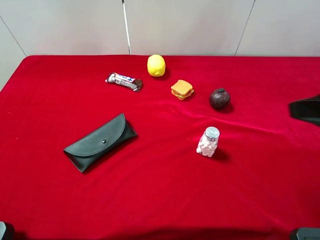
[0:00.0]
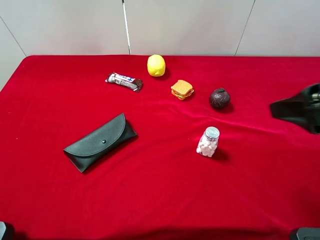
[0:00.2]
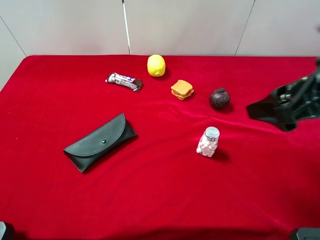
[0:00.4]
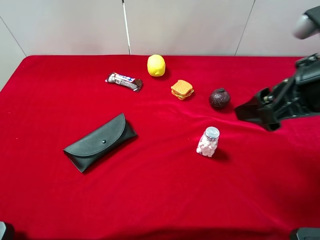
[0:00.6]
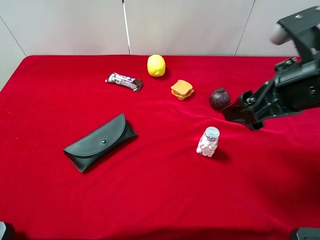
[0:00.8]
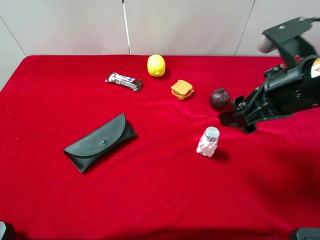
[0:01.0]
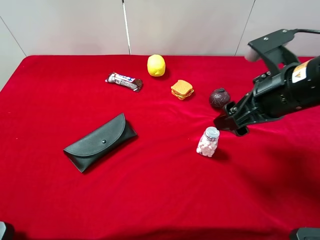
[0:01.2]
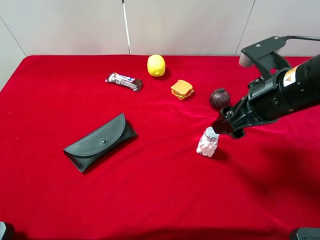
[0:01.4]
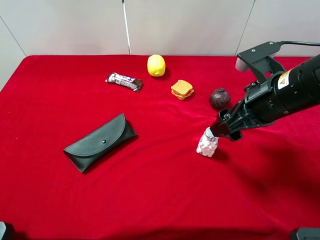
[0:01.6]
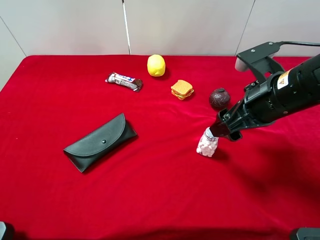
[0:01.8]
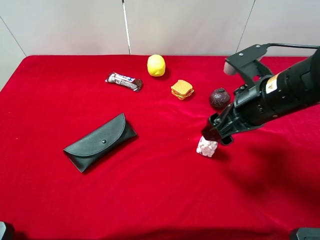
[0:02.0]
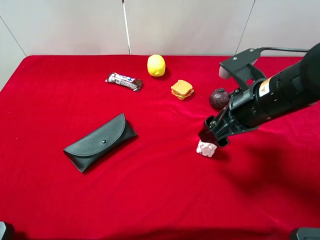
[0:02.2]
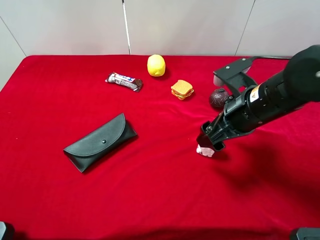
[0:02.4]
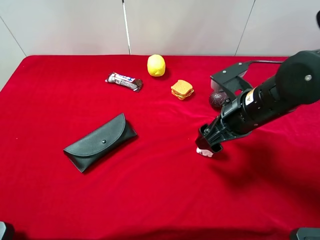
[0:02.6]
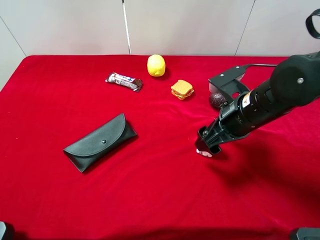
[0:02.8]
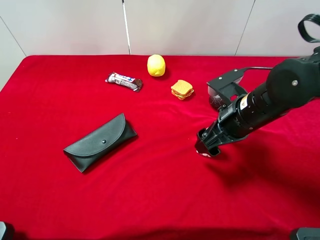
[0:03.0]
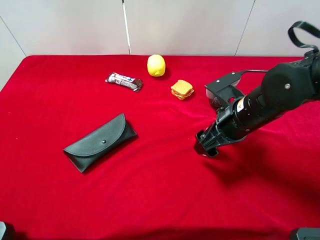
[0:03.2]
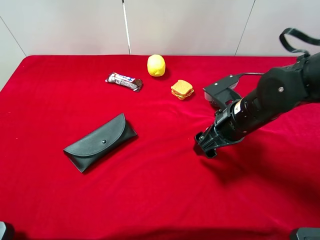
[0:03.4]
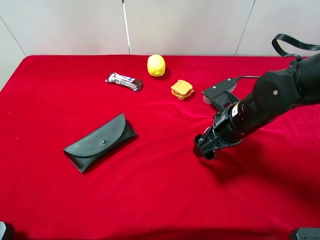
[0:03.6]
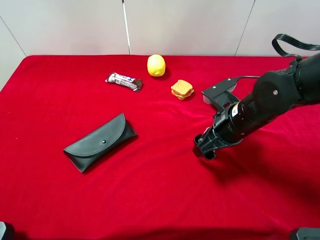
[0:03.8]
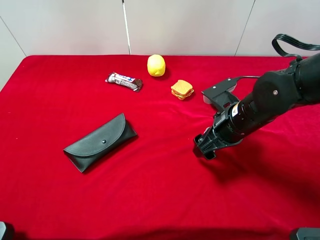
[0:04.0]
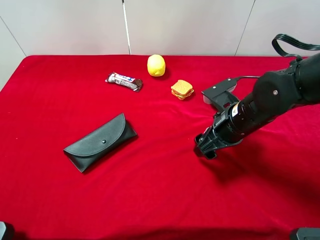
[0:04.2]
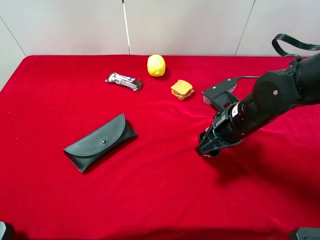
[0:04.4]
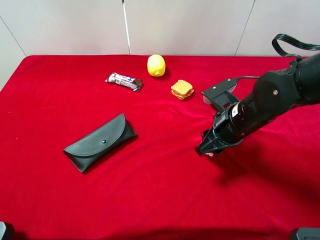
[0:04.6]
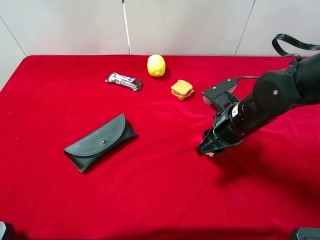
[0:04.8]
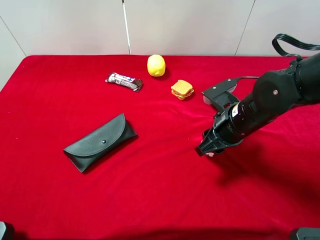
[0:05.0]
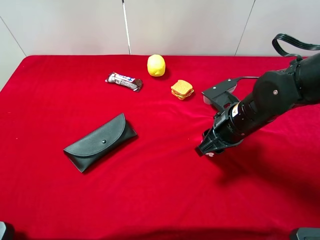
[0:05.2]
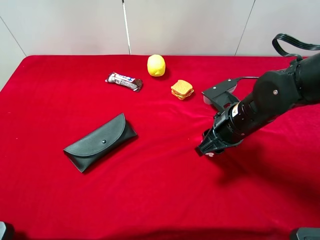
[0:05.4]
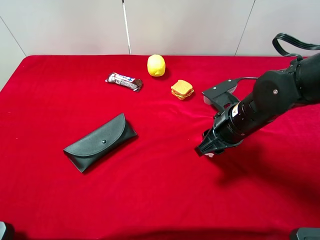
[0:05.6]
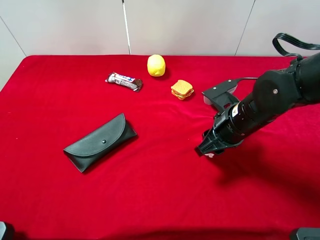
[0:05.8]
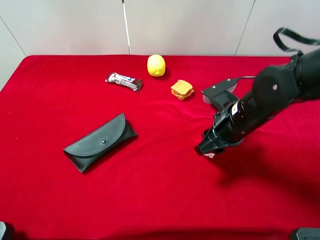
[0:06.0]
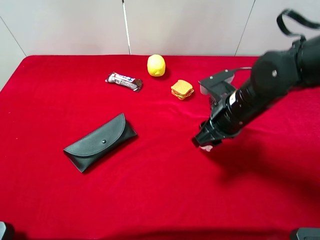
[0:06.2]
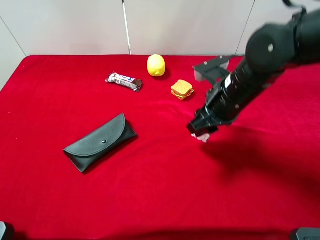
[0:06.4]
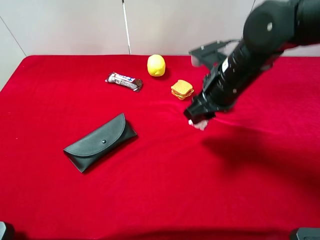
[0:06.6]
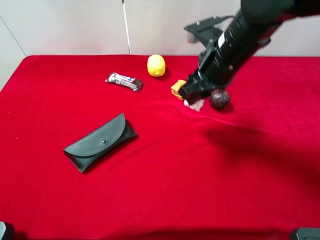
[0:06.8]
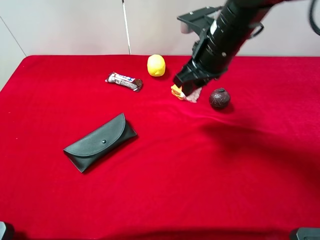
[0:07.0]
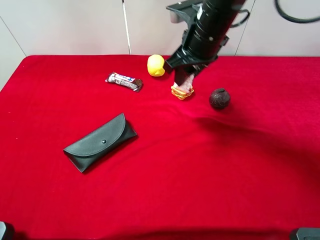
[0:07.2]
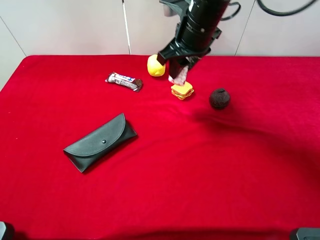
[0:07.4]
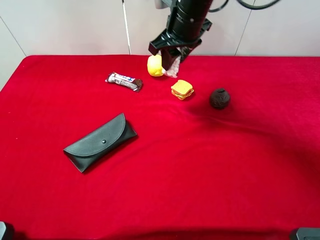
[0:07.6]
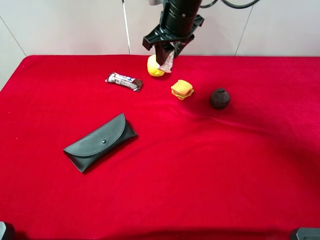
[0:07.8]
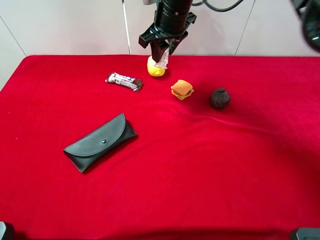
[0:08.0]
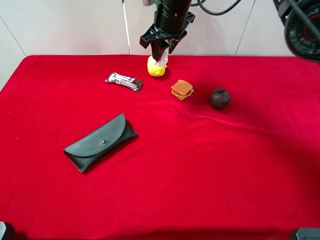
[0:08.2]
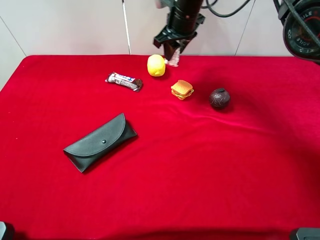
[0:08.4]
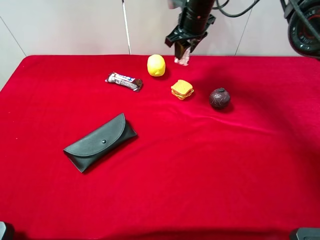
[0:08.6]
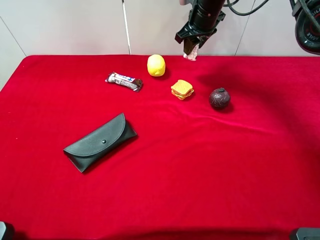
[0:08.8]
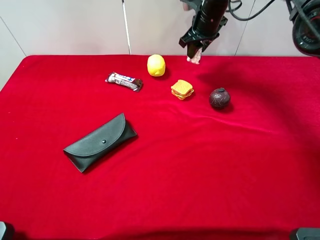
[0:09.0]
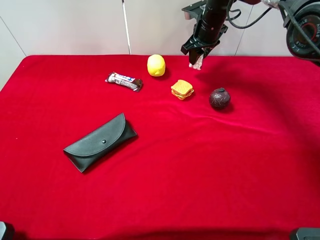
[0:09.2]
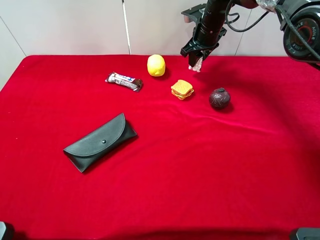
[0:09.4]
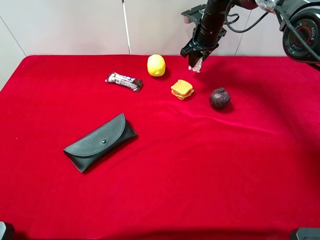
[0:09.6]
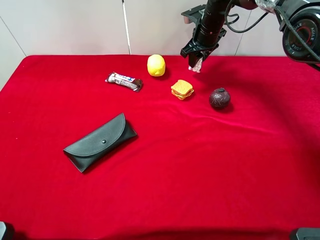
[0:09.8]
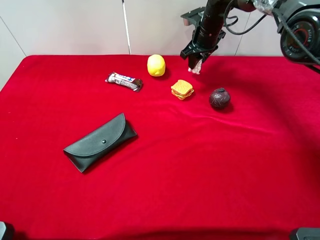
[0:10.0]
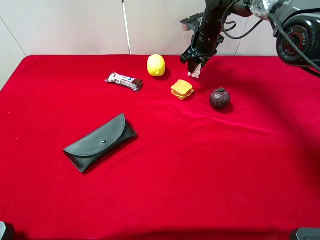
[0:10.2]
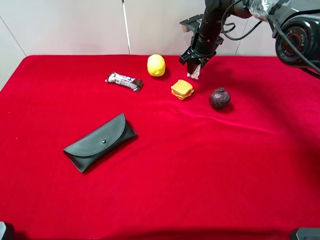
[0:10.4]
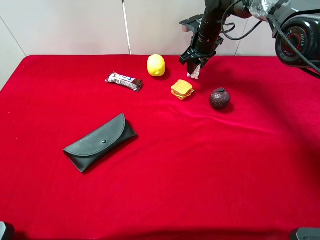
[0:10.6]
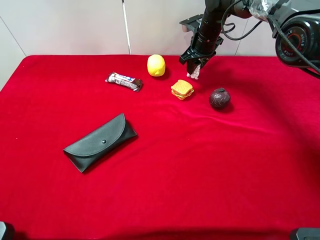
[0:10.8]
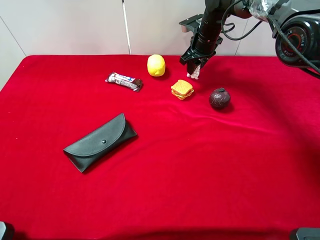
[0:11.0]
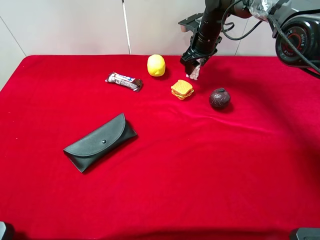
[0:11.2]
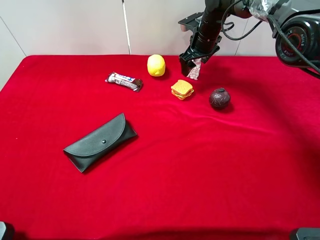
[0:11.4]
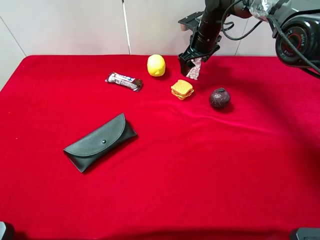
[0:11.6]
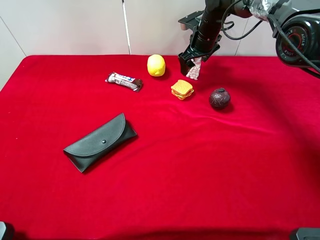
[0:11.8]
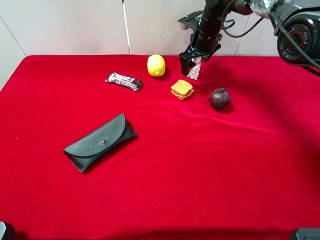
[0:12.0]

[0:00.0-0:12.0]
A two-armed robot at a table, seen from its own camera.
Task of the whole recording: the gripper move the object.
Step, 0:00.0 to 0:04.6: Grasp the mint candy with the right gripper.
0:00.0 to 0:01.6: The right gripper goes roughly 15 cm downward, forward and to the left.
0:01.6 to 0:03.0: The right gripper travels downward by roughly 5 cm.
0:03.0 to 0:04.4: The right gripper closes.
0:04.4 to 0:06.0: Both grippers stay about where they are.
0:06.0 to 0:07.6: The right gripper shifts roughly 20 cm forward, upward and to the left.
0:07.6 to 0:09.0: The right gripper is displaced forward, to the right and downward by some 15 cm.
0:09.0 to 0:10.4: The right gripper goes approximately 5 cm downward.
0:10.4 to 0:12.0: The right gripper opens up.

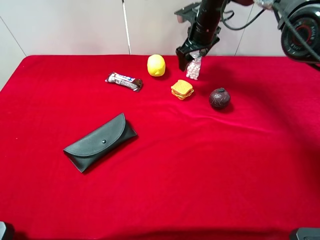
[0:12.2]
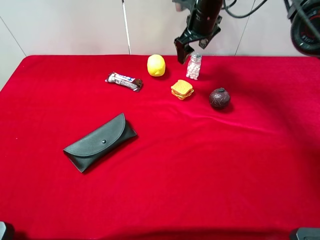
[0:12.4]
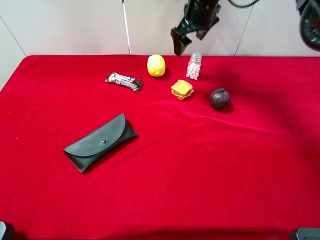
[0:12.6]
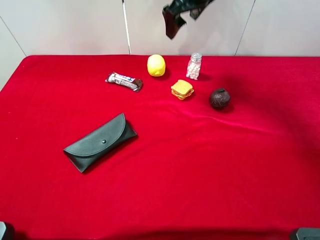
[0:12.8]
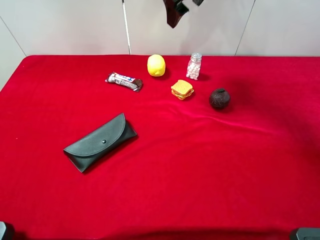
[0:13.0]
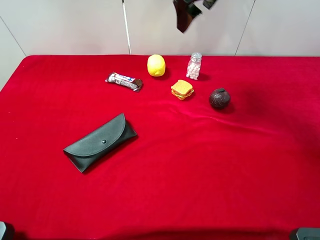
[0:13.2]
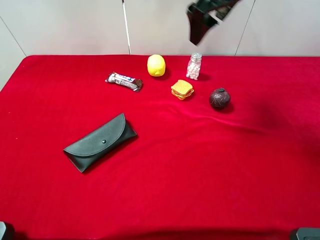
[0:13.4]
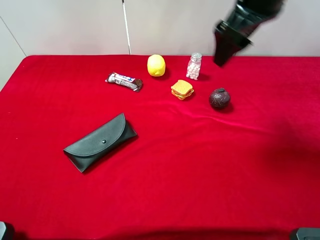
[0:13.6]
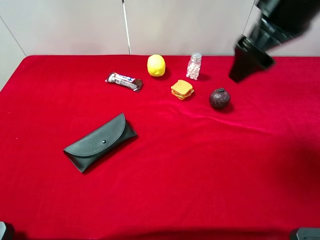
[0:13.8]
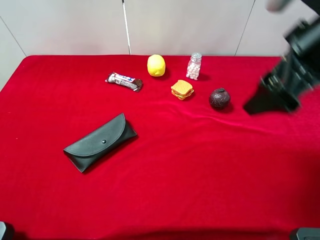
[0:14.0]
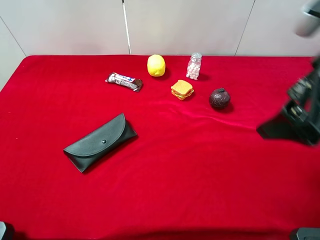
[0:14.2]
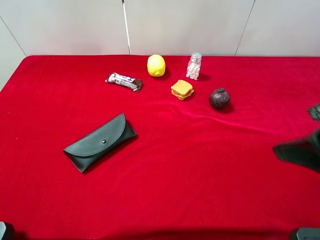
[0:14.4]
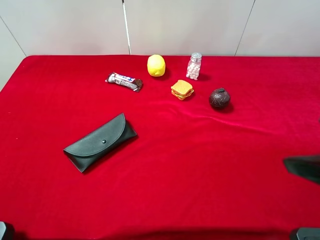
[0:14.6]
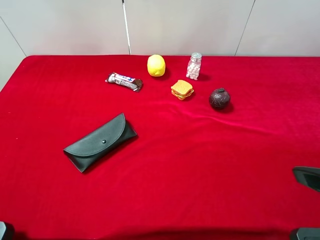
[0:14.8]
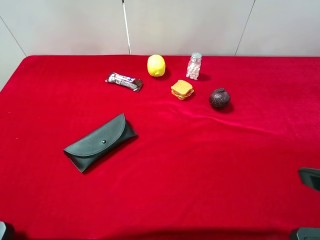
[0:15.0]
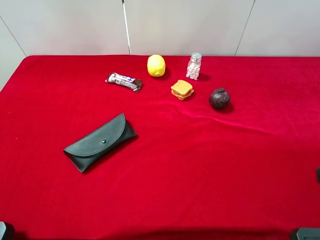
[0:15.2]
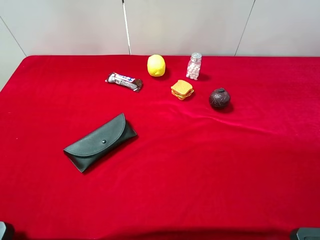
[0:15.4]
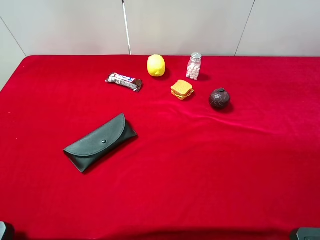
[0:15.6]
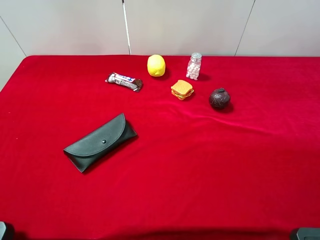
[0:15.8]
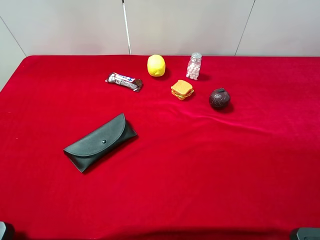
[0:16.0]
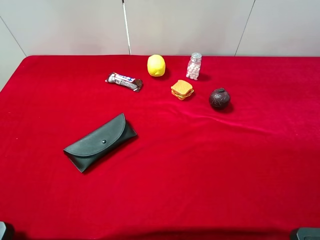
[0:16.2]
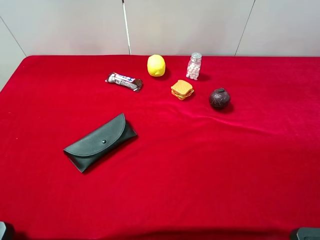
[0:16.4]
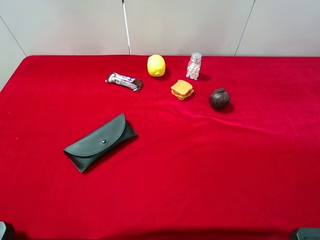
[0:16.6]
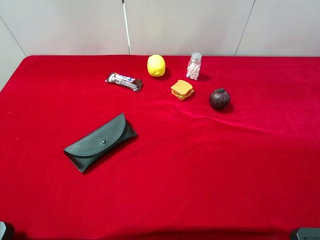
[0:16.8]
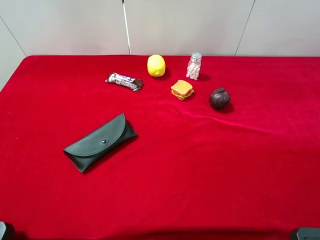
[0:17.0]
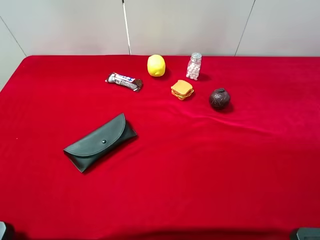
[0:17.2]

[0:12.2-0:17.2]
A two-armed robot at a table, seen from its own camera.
Task of the whole recording: the gripper move the object.
0:12.2 to 0:13.8: The right gripper moves backward and upward, some 30 cm.
0:13.8 to 0:15.6: The right gripper goes roughly 25 cm backward and to the right.

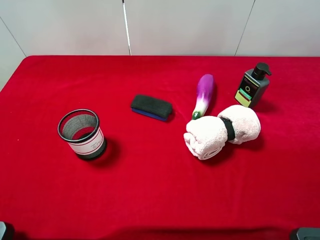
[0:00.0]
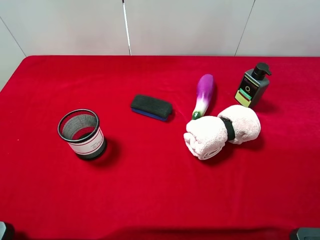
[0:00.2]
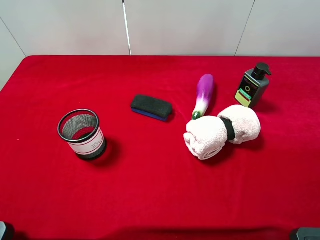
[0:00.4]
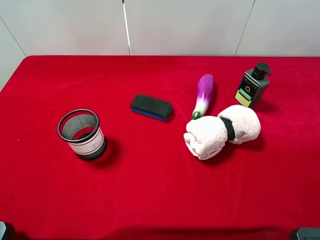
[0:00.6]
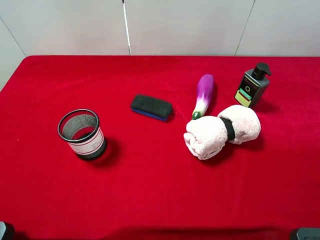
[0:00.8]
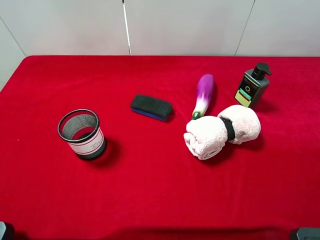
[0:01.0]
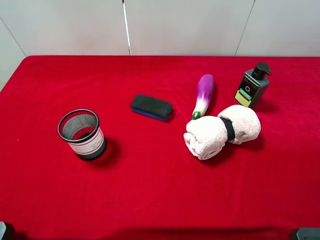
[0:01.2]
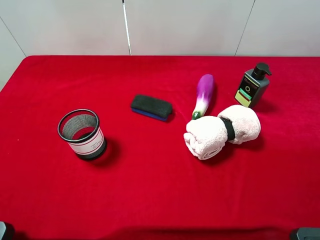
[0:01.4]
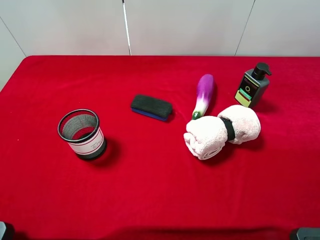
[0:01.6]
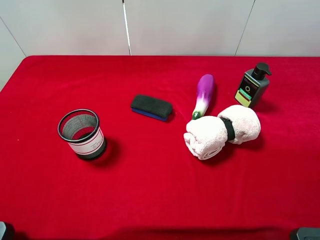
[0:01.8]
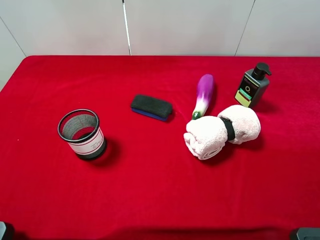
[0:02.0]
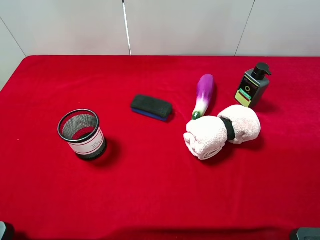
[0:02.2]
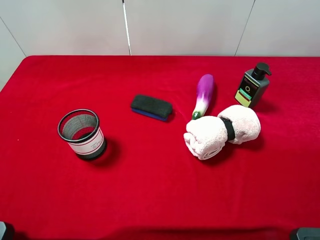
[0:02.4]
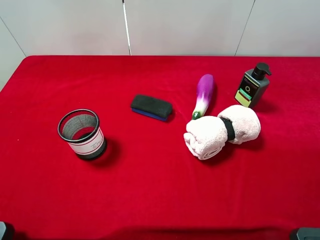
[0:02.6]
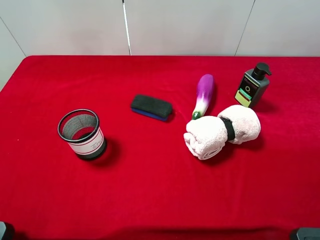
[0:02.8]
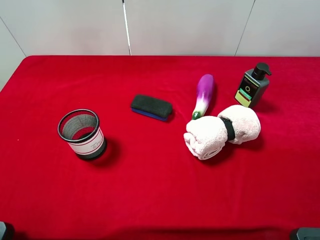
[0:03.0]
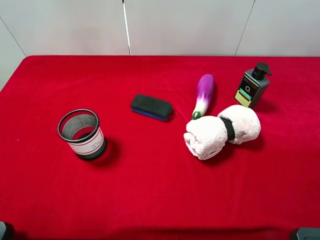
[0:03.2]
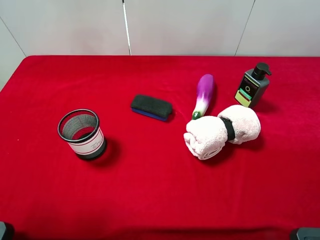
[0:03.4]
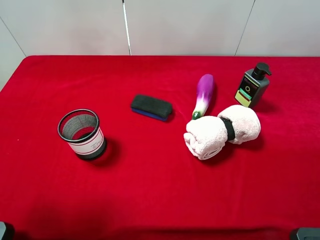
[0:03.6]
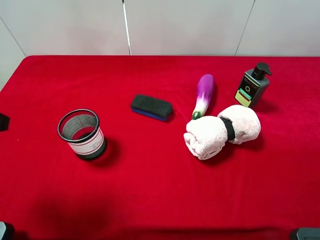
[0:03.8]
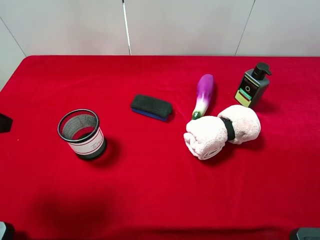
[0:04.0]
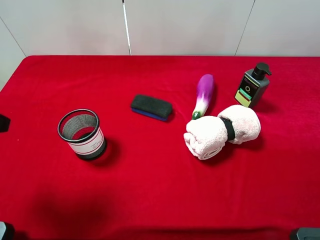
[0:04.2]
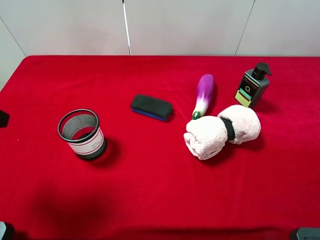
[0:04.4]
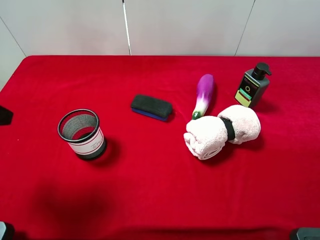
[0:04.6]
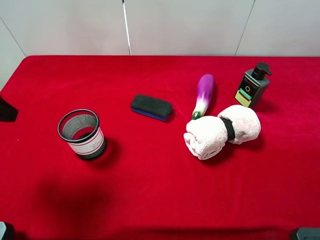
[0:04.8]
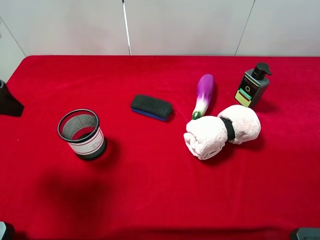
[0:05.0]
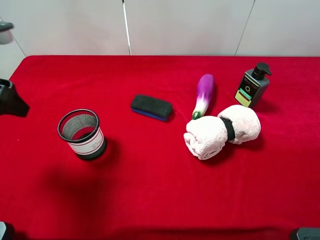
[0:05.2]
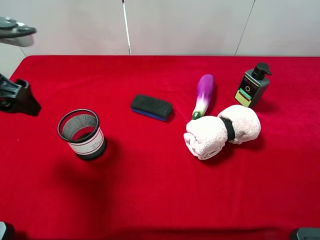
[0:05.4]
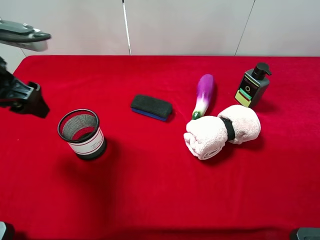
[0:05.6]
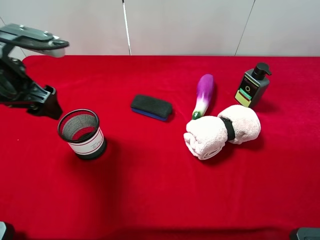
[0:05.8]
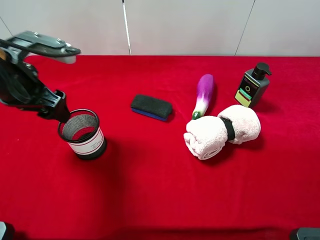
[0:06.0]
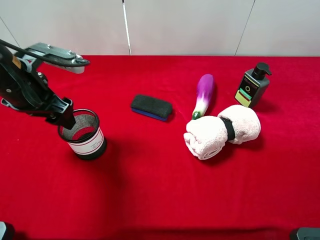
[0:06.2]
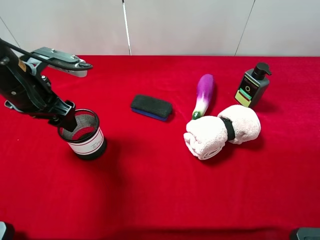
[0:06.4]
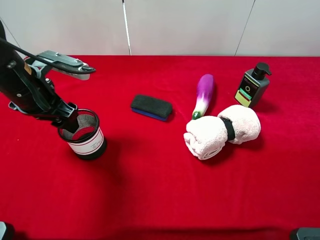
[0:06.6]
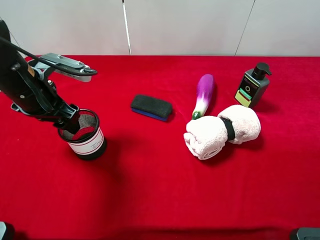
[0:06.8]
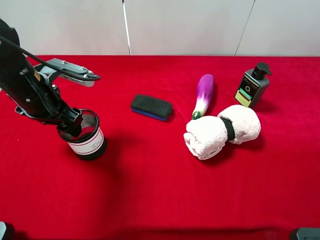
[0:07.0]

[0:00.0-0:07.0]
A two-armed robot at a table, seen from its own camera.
Task of the whole recording: the gripper move the object.
0:00.0 to 0:01.4: Neither gripper changes place.
0:02.8 to 0:04.2: The left gripper shifts about 10 cm forward.
0:04.2 to 0:05.6: The left gripper is displaced forward by roughly 10 cm.
0:05.6 to 0:07.0: The left gripper is displaced downward by roughly 10 cm.
